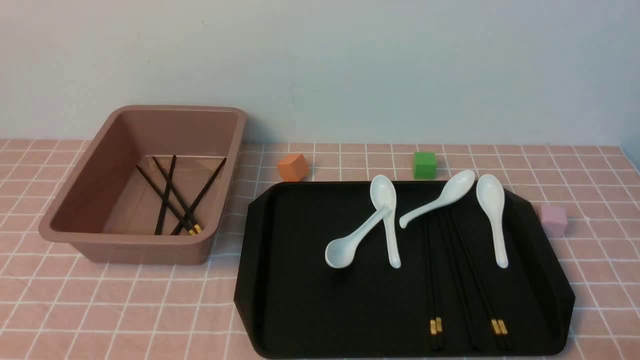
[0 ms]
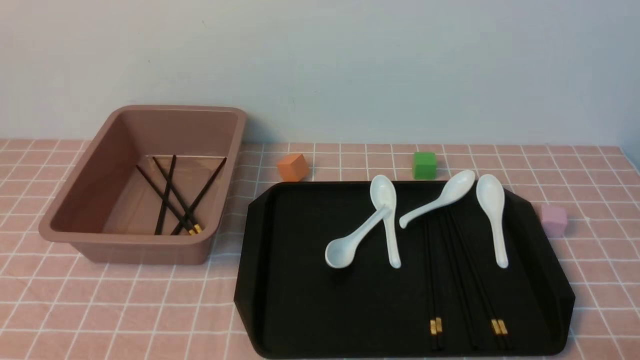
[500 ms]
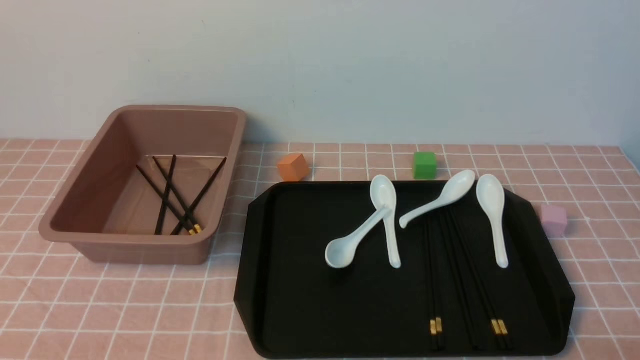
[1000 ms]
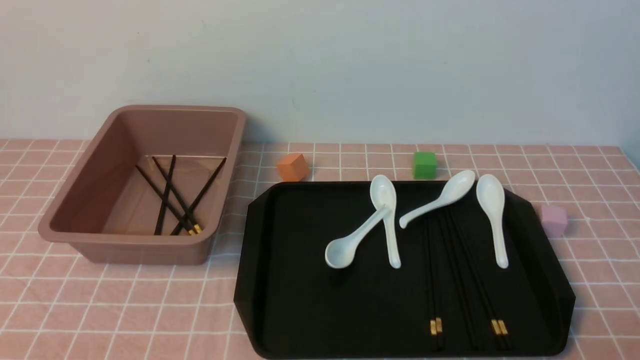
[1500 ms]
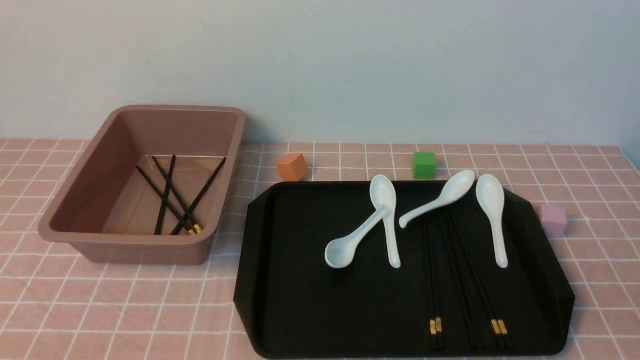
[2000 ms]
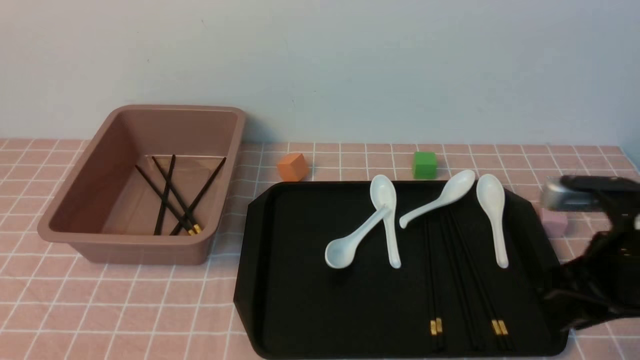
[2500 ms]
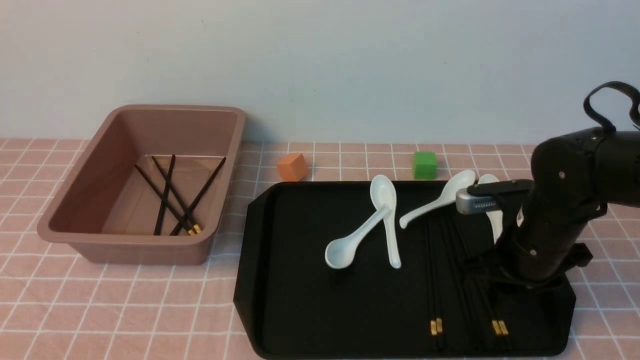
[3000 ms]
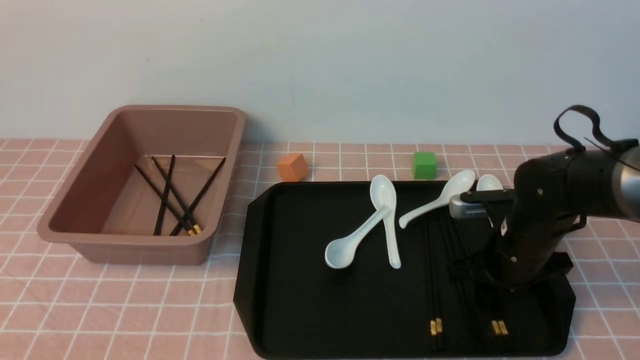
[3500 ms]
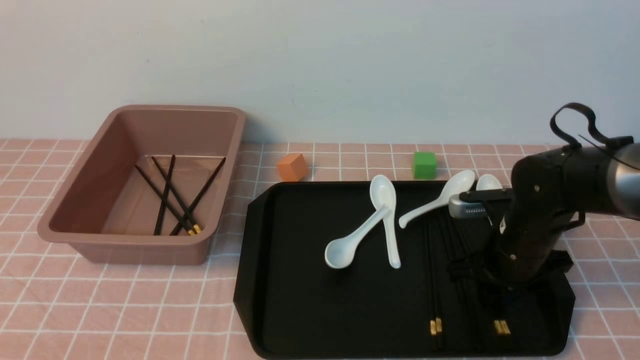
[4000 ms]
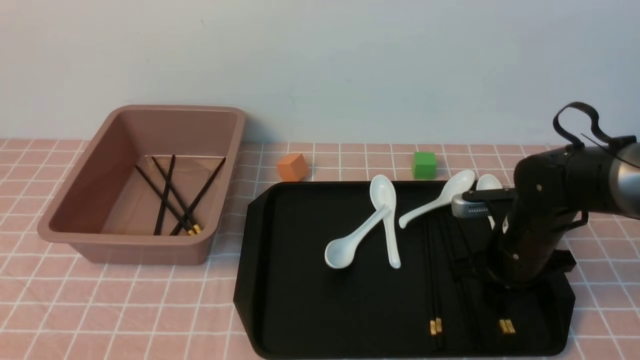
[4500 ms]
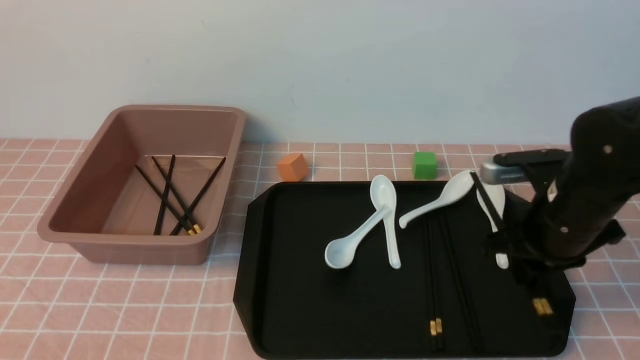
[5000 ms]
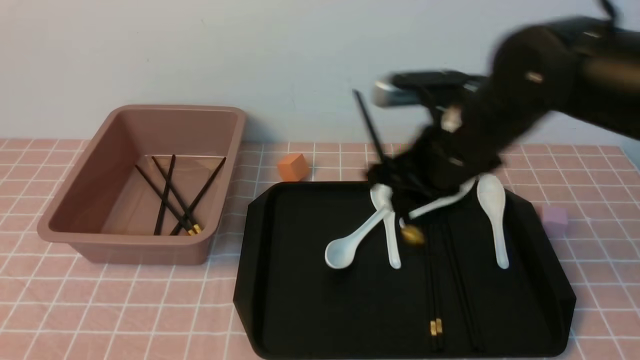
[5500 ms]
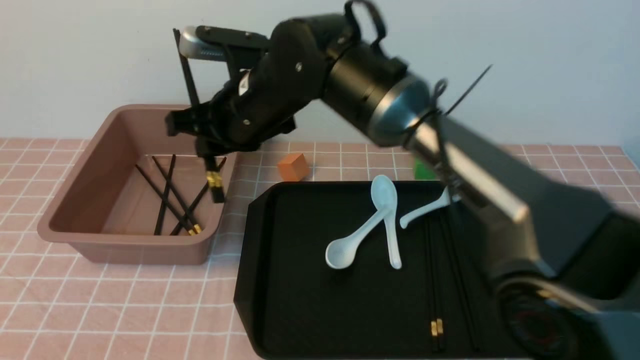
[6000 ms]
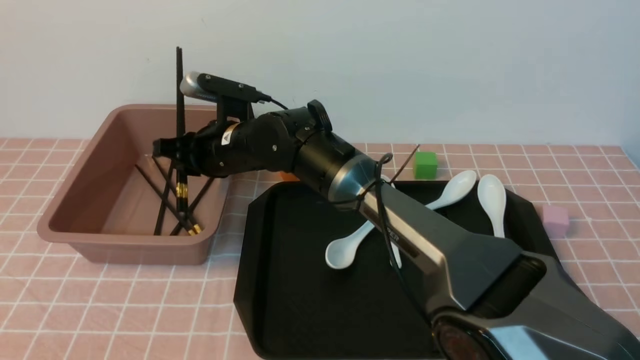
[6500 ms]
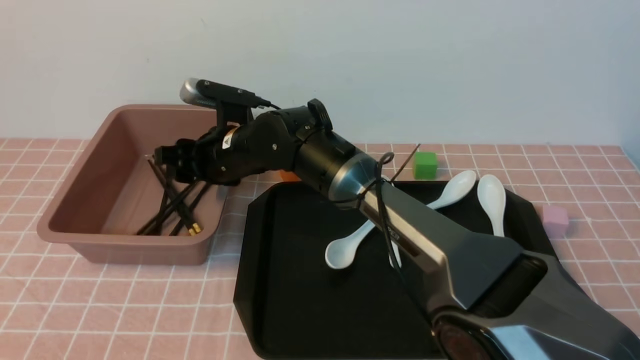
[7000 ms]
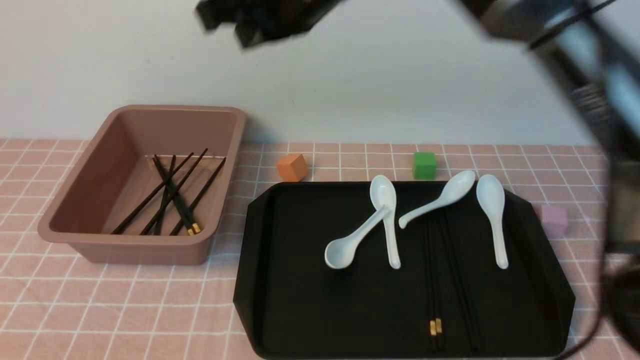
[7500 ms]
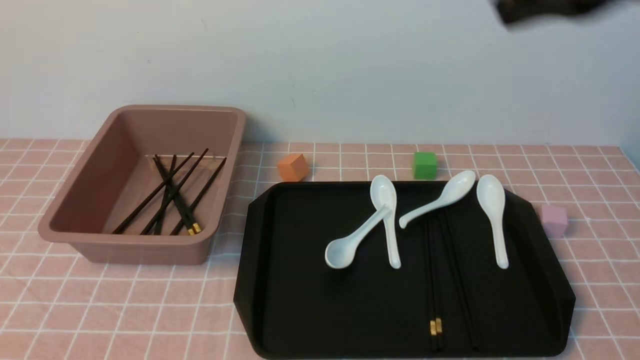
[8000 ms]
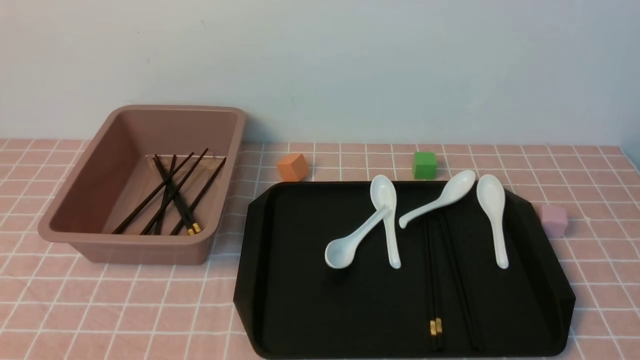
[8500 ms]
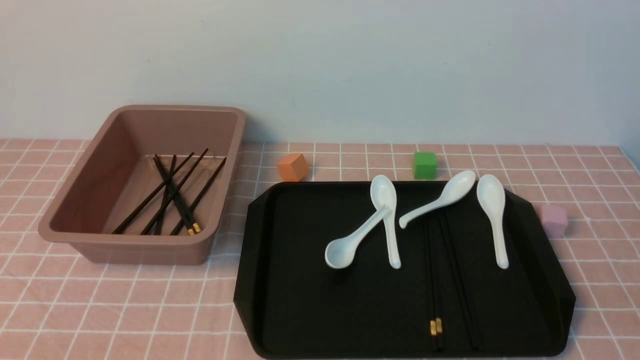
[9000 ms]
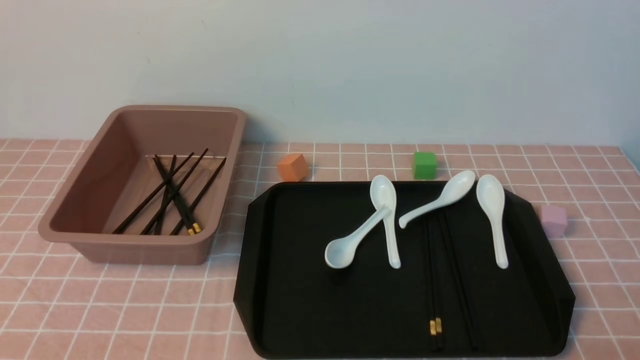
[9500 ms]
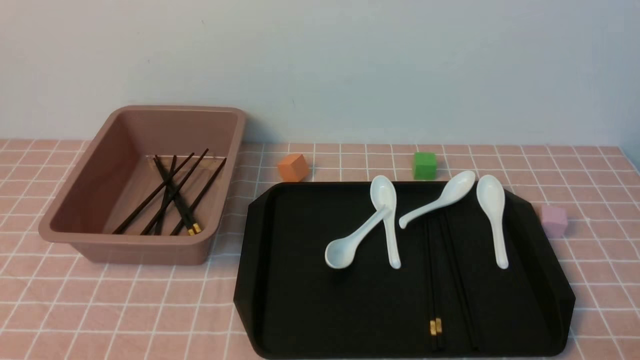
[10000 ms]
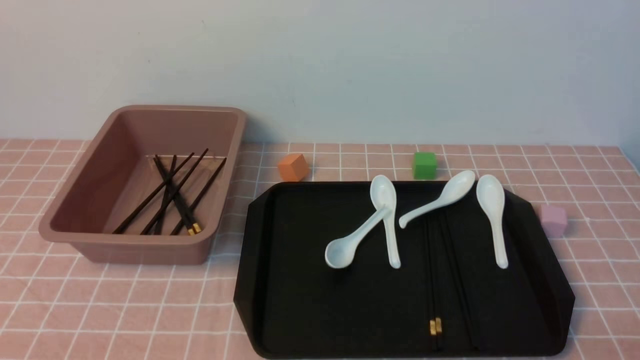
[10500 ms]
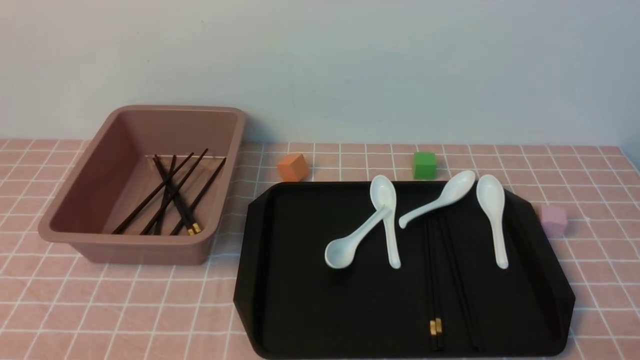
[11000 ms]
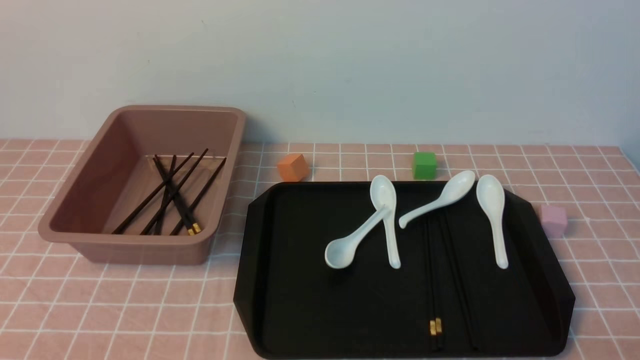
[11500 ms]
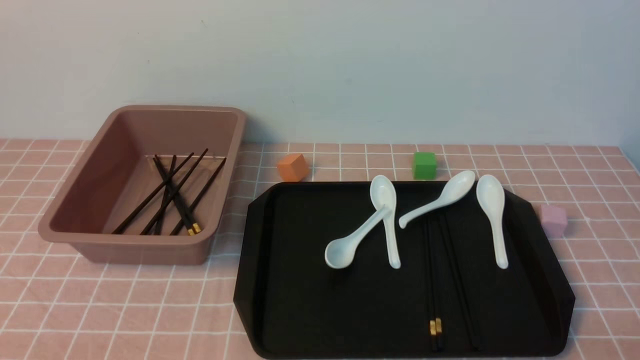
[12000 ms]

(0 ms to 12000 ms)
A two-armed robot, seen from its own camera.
Step, 0 ms - 4500 ms: use the right arm to grab a pair of chopsticks.
Step, 5000 ms - 7000 ms: use the right arm to put the chopsticks into the lunch box.
2000 ms - 4000 ms: The right gripper is displaced forward and downward by some 30 cm.
4000 ms - 6000 ms: The right gripper moves to the left and upward, roughly 30 cm.
6000 ms - 8000 ms: The right gripper goes about 35 cm to the right, upward and backward, and closes up.
8000 ms - 10000 ms: The right gripper travels downward, to the right and backward by about 40 cm.
10000 ms - 12000 ms: Both grippers stay put.

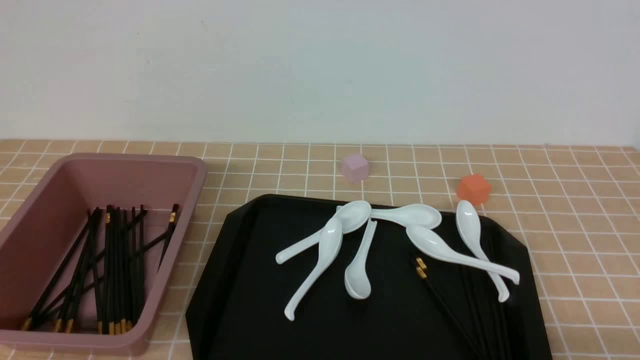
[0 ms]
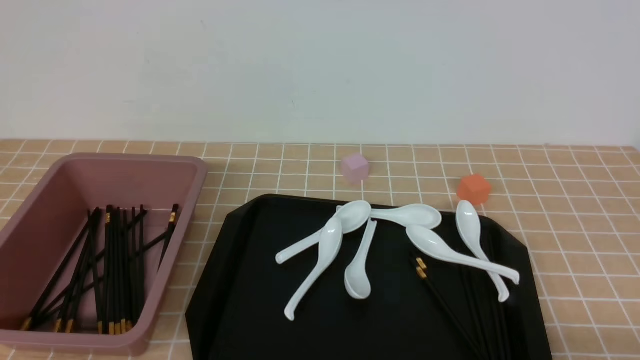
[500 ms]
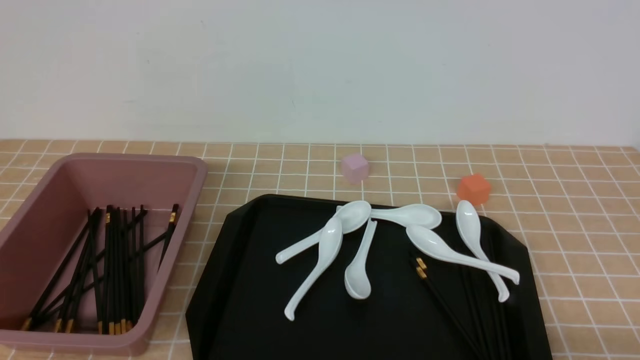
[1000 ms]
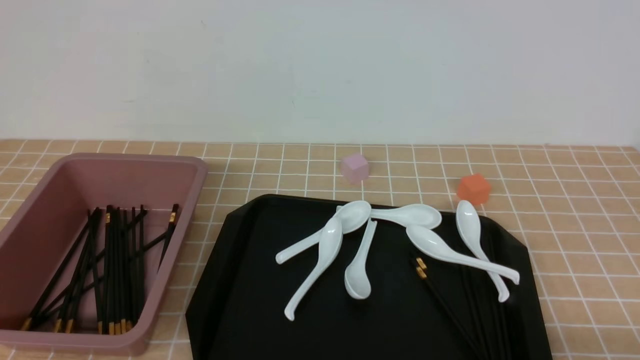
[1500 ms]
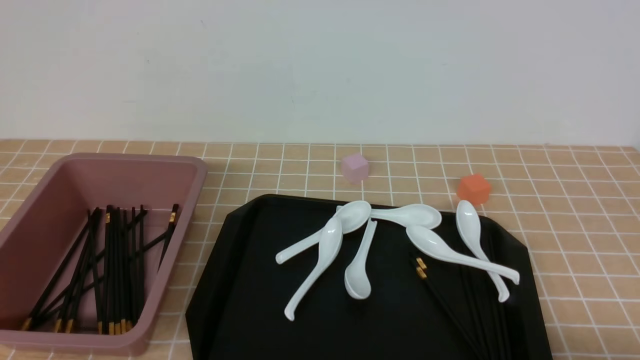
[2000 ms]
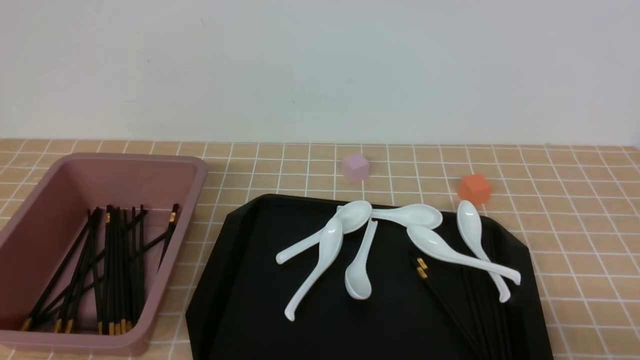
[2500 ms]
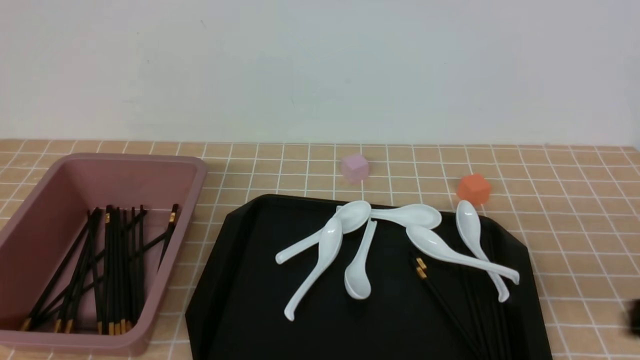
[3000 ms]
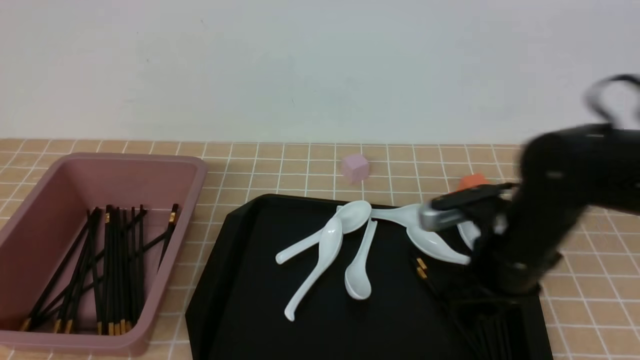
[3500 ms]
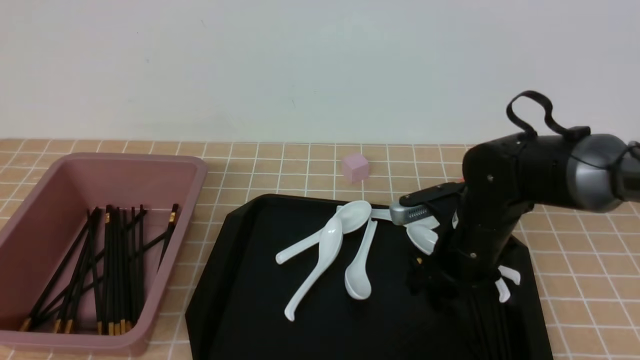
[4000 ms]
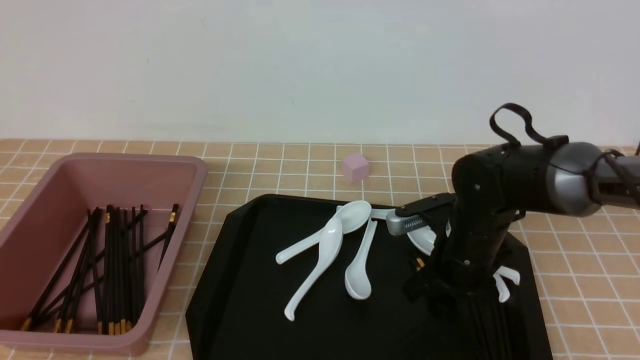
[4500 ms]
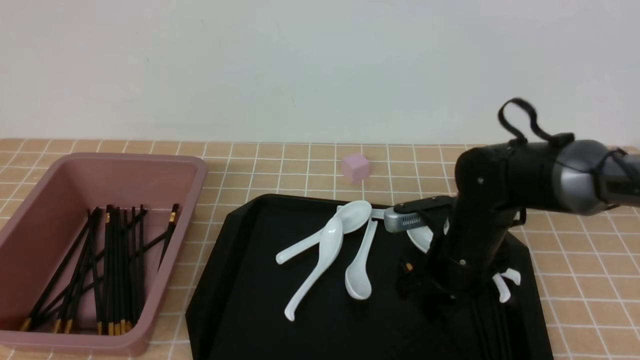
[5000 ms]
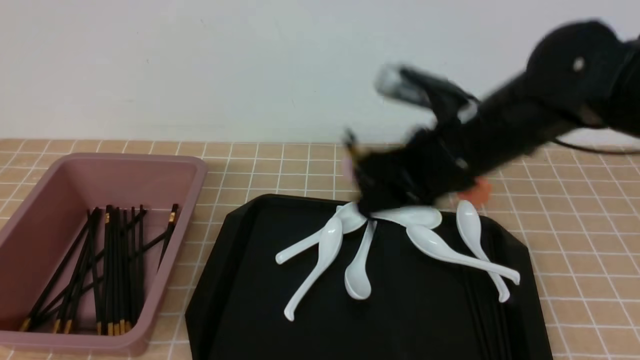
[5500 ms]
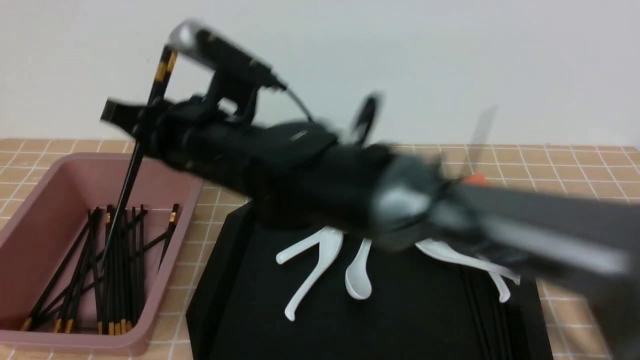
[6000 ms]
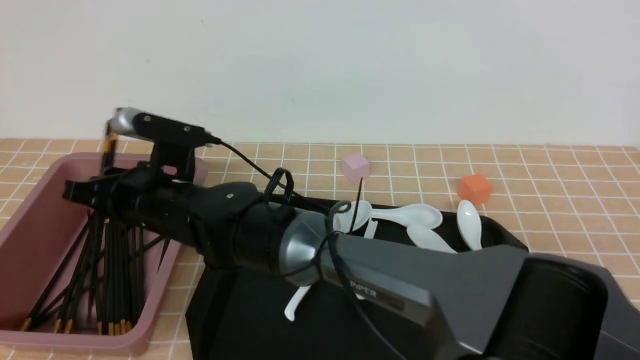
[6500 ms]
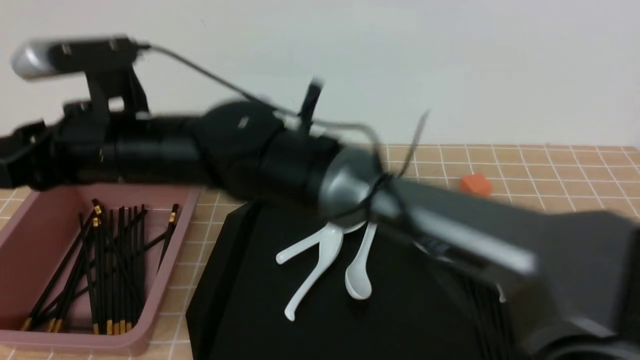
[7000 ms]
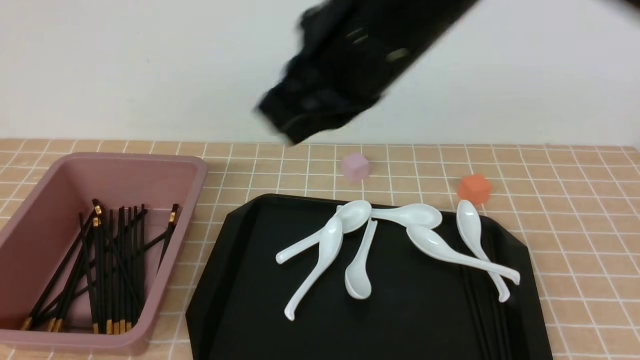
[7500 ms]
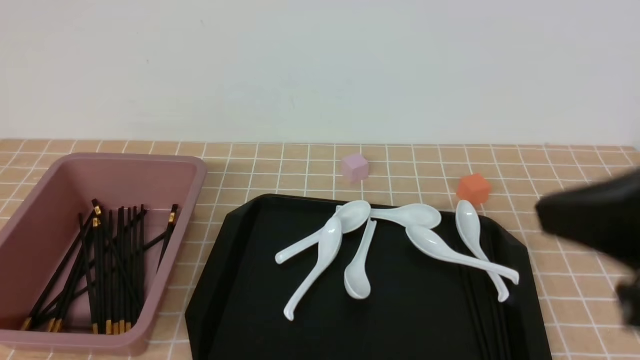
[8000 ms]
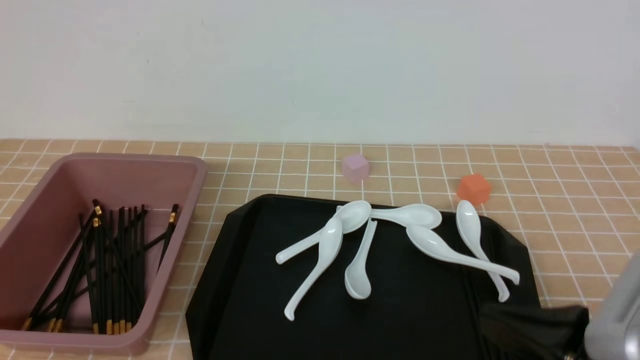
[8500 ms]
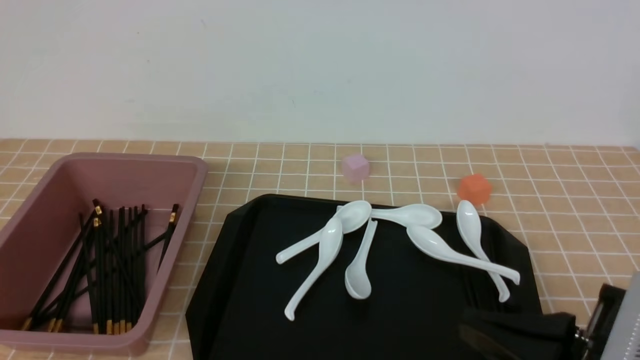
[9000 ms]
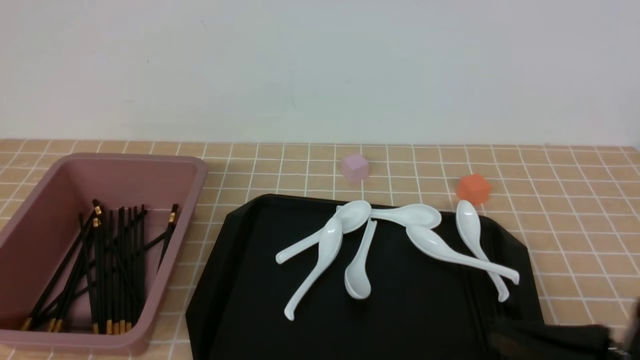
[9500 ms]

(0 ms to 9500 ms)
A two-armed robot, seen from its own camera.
Step, 0 ms - 5000 ms: use the right arm to grab a pair of chopsticks.
Step, 5500 ms - 7000 ms: use the right arm to put the chopsticks into the lunch box.
2000 ms - 4000 ms: The right gripper shifts some 30 cm forward and to the left, and closes, then reopens.
4000 ms - 5500 ms: The right gripper goes some 15 cm upward and to the left, and closes up.
5500 ms - 7500 ms: The right gripper goes about 15 cm upward and backward, travels to the left and back again, some 25 cm each way, and closes up.
7500 ms - 9500 ms: The right gripper heads downward, to the right and backward, covering about 30 cm.
